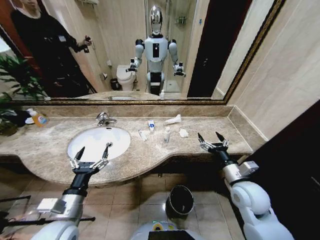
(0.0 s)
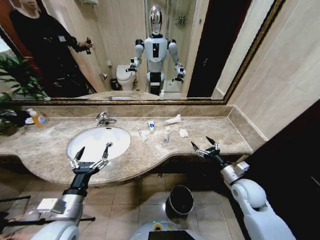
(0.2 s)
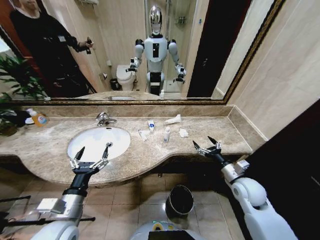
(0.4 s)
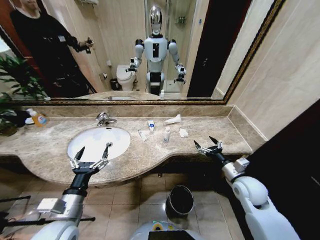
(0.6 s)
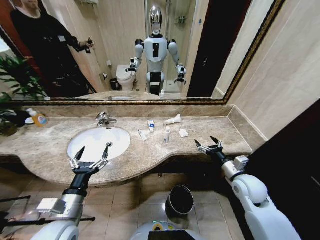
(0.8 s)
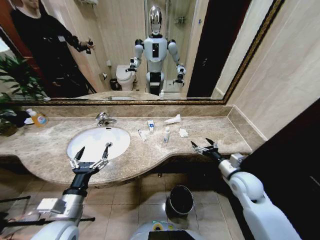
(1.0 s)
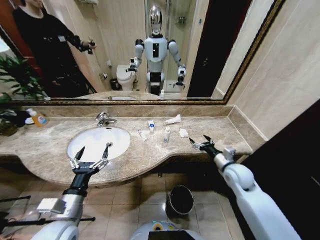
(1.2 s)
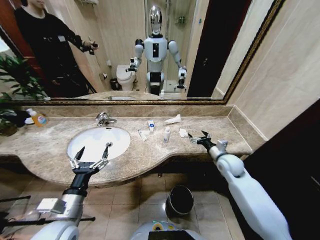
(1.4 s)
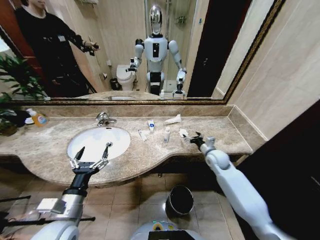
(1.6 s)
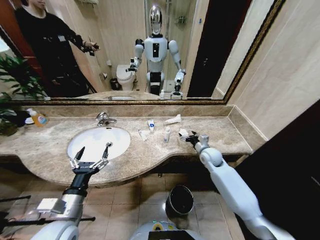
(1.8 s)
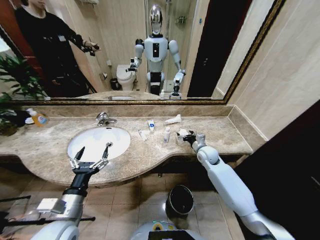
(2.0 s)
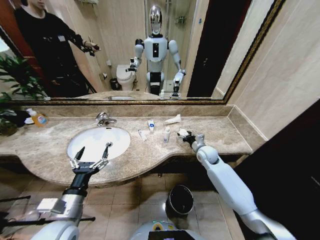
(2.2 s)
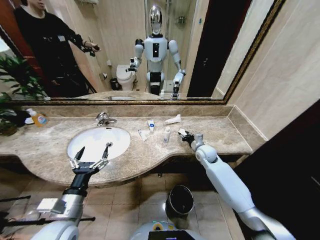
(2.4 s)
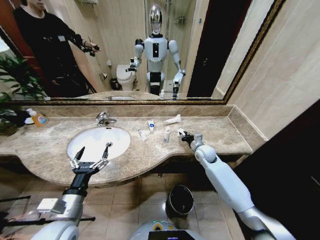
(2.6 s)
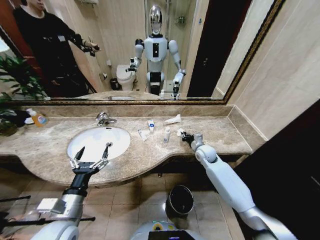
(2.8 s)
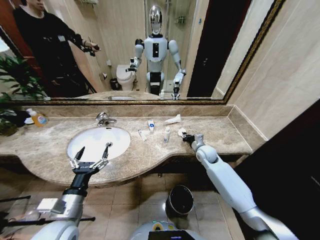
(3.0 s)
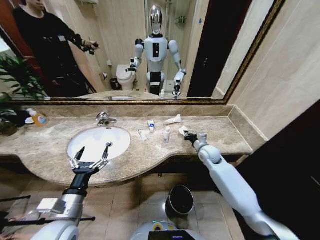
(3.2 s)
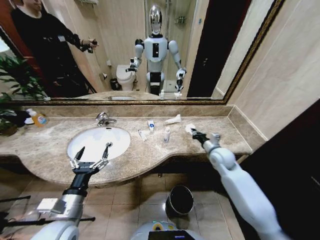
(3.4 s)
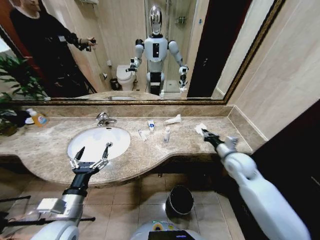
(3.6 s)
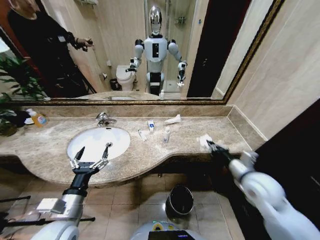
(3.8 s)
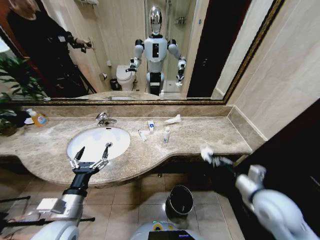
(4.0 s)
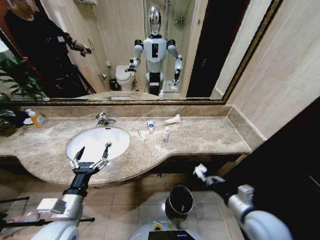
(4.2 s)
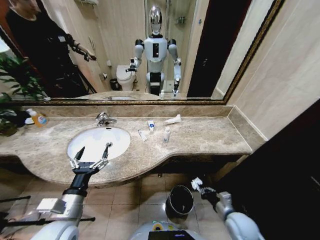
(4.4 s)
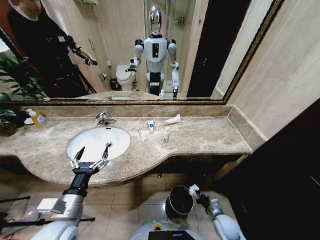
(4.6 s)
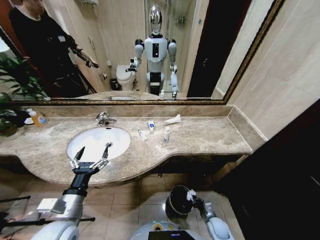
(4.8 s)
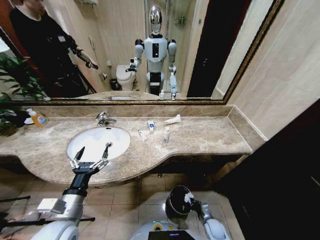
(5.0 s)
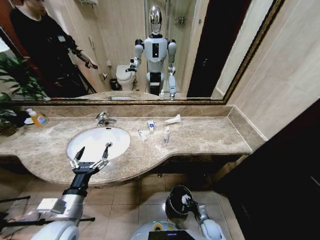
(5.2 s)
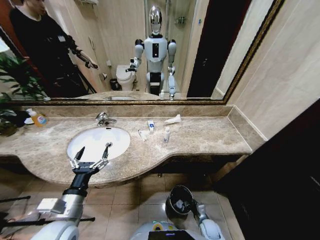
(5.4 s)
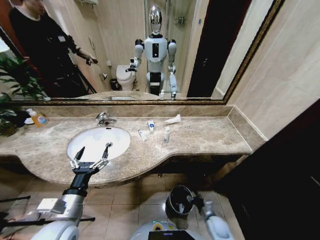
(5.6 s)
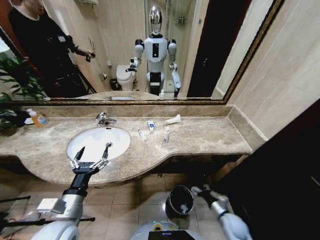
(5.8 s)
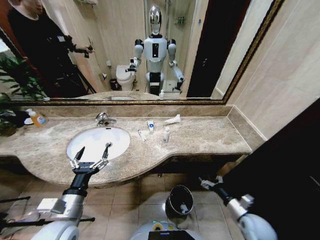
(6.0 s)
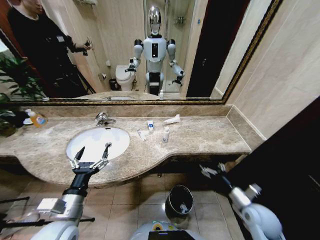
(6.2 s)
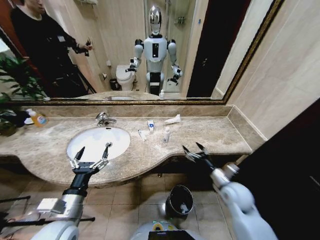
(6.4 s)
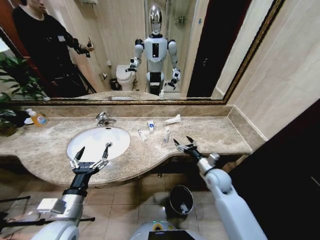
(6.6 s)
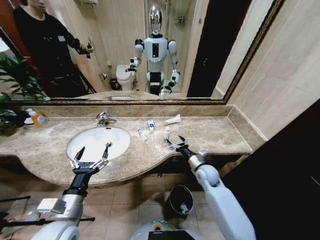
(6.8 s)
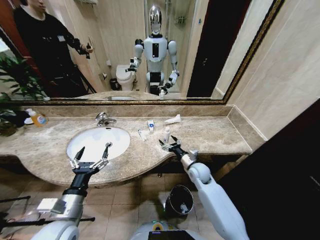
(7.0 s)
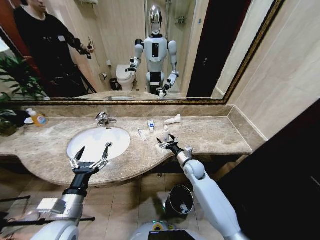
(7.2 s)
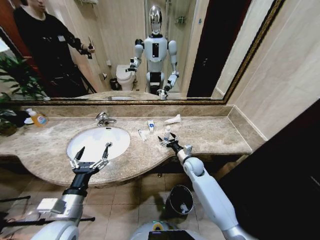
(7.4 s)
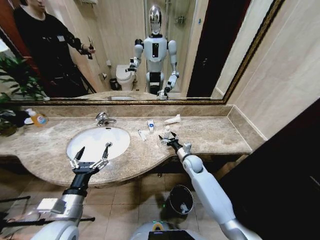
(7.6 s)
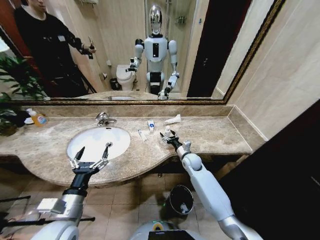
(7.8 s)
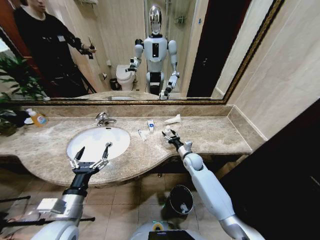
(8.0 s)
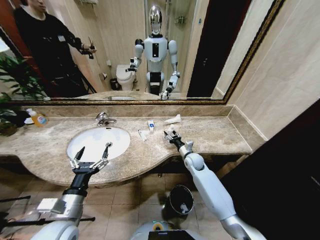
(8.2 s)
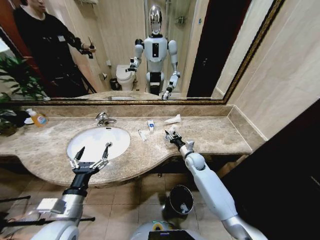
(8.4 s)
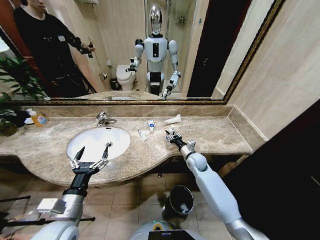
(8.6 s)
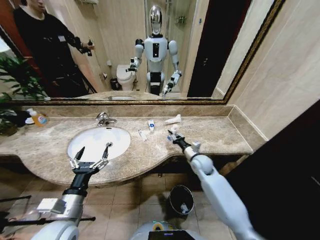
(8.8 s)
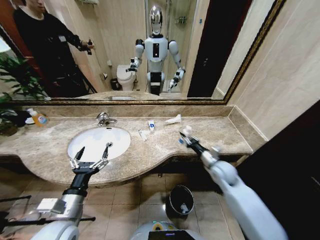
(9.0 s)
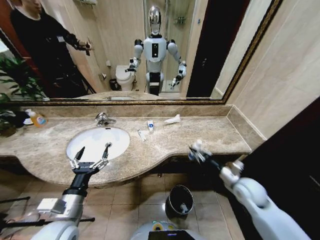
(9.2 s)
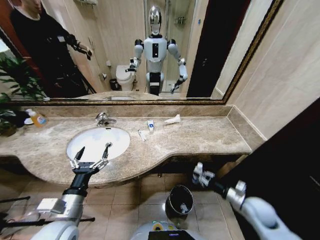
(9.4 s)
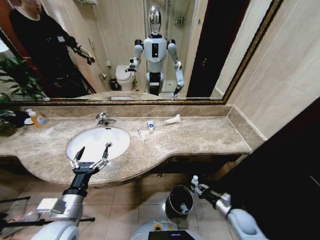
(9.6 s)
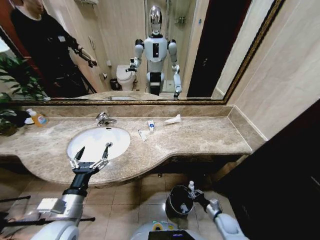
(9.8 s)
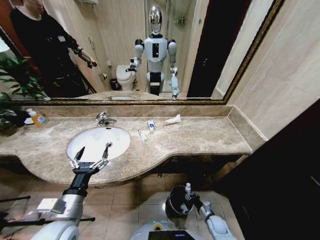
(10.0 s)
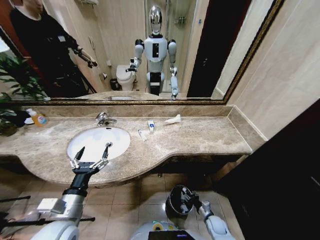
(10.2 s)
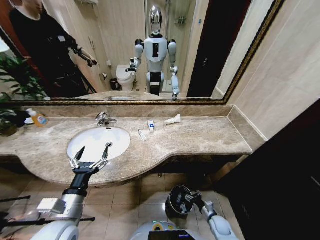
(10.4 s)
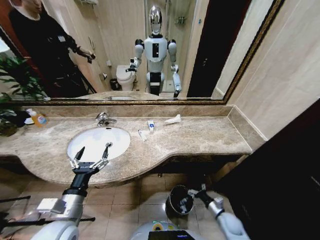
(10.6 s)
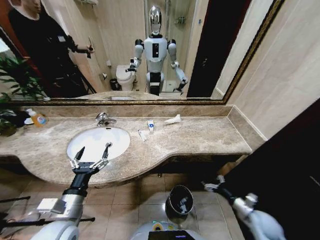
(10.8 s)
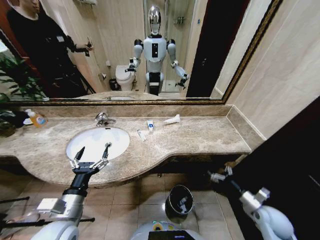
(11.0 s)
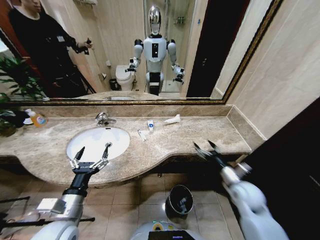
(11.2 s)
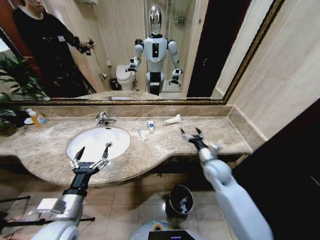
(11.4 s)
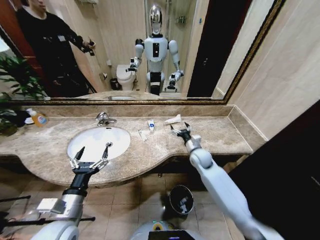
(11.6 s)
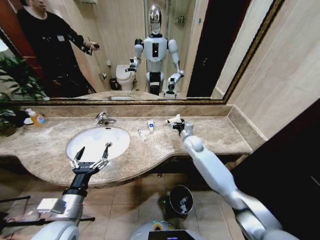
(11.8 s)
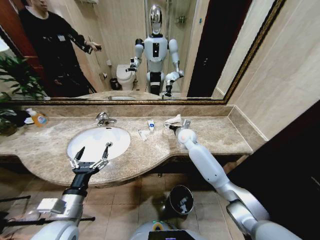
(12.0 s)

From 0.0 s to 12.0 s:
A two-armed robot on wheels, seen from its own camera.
Task of the whole recording: Pick up the trash from the sink and place it in the trash bin.
From 1.6 s to 3.0 s: The right gripper changes place by some 5 cm, and closes its fingers.
From 3.0 s to 4.4 s: The right gripper is displaced backward by some 30 cm.
From 4.4 s to 6.0 s: The right gripper goes approximately 5 cm to the right, goes downward and returns, roughly 20 cm each way, and opens up.
From 6.0 s to 7.6 s: The right gripper travels forward and to the left by roughly 30 cm.
From 7.6 s to 9.0 s: The right gripper moves to the right, backward and upward, about 15 cm, and closes its fingers.
From 9.0 s to 10.4 s: The right gripper heads downward and backward, covering some 35 cm, and opens its fingers.
From 10.4 s to 12.0 s: The right gripper shifts some 50 cm upward, forward and to the left.

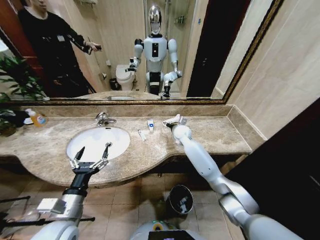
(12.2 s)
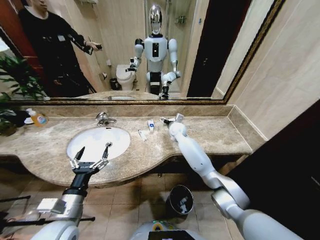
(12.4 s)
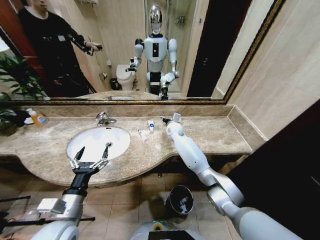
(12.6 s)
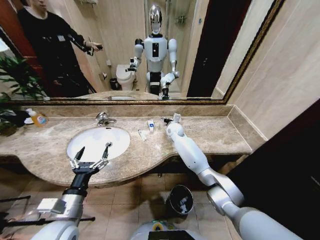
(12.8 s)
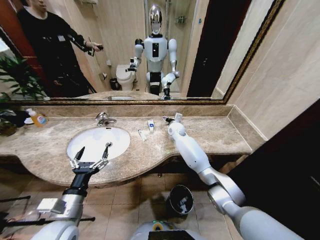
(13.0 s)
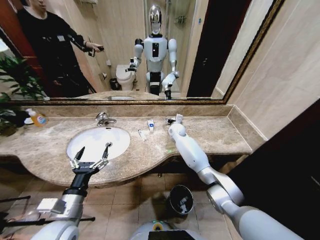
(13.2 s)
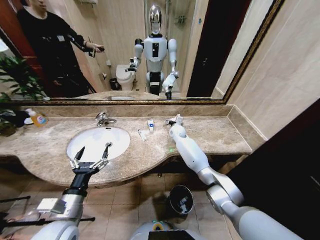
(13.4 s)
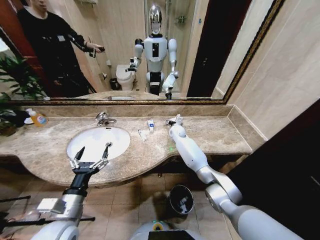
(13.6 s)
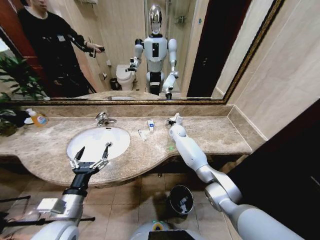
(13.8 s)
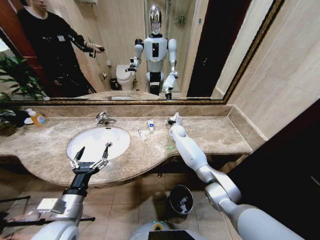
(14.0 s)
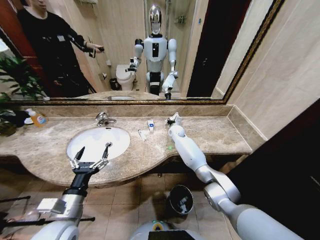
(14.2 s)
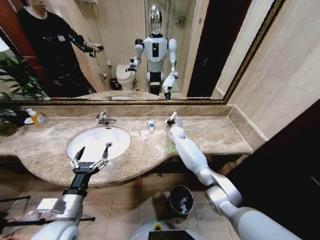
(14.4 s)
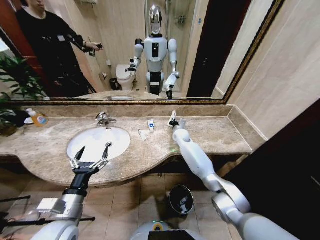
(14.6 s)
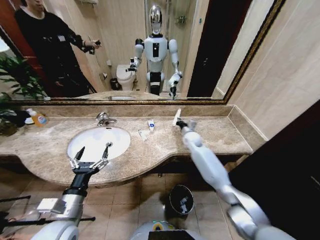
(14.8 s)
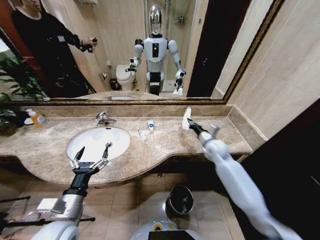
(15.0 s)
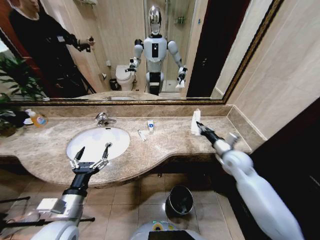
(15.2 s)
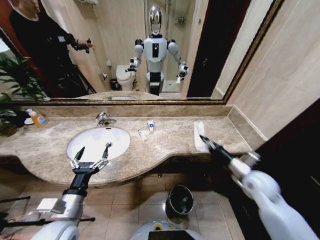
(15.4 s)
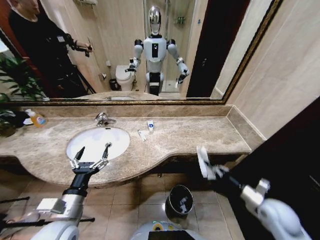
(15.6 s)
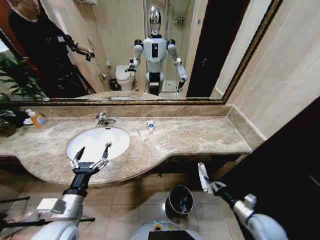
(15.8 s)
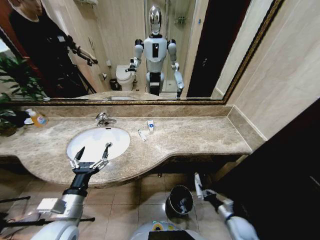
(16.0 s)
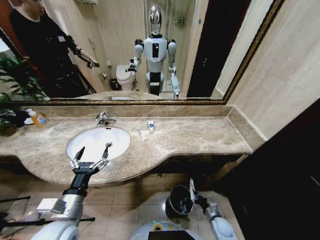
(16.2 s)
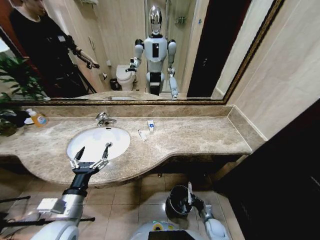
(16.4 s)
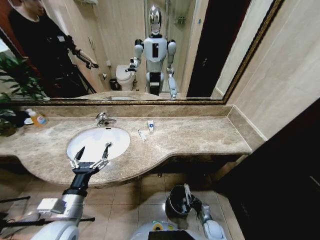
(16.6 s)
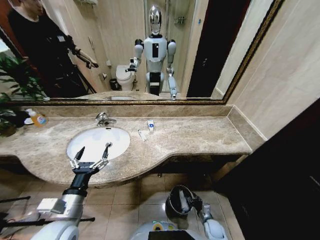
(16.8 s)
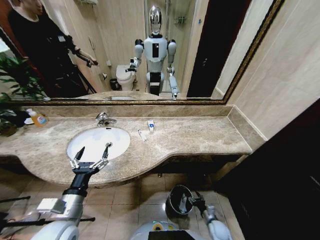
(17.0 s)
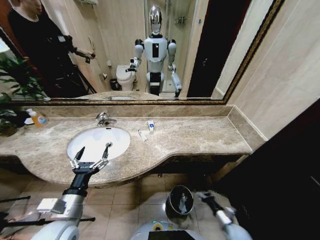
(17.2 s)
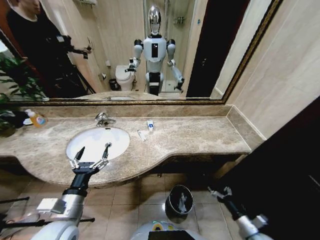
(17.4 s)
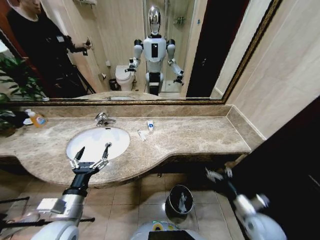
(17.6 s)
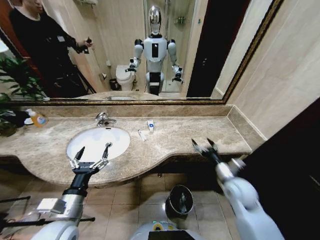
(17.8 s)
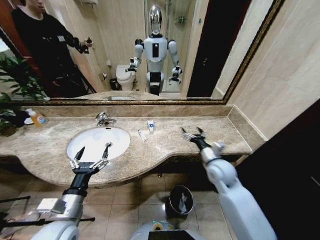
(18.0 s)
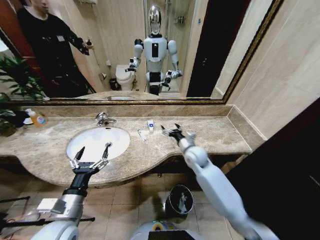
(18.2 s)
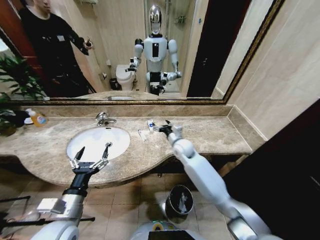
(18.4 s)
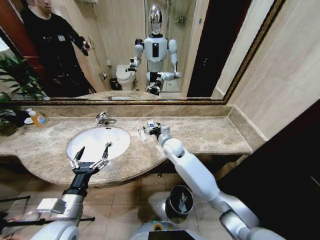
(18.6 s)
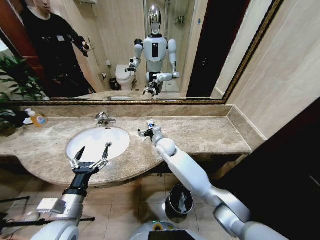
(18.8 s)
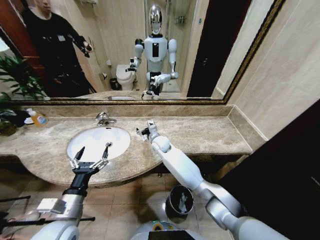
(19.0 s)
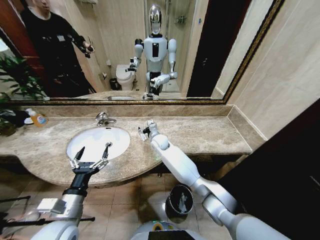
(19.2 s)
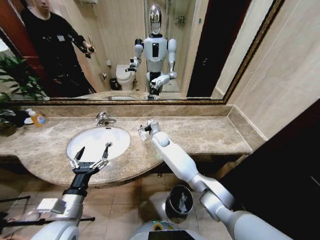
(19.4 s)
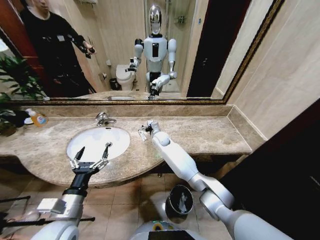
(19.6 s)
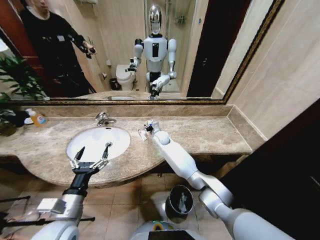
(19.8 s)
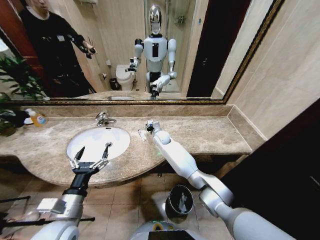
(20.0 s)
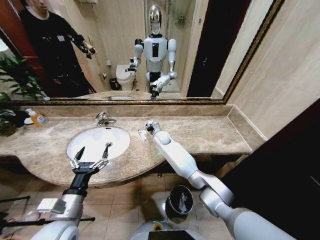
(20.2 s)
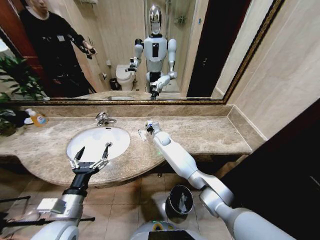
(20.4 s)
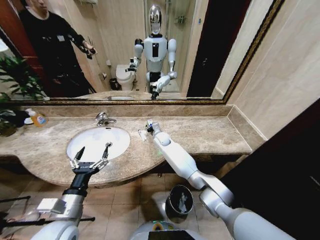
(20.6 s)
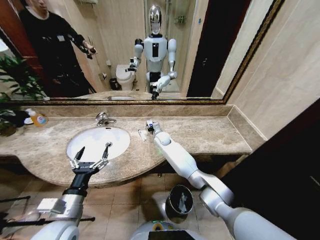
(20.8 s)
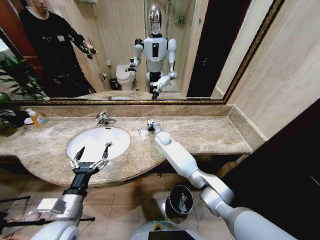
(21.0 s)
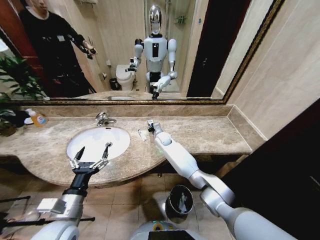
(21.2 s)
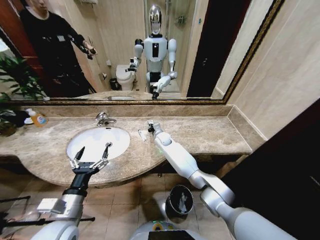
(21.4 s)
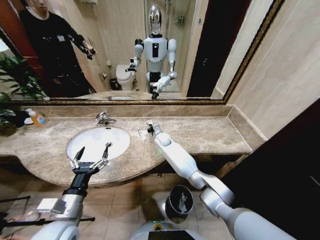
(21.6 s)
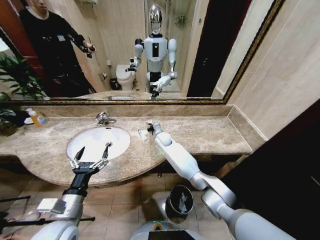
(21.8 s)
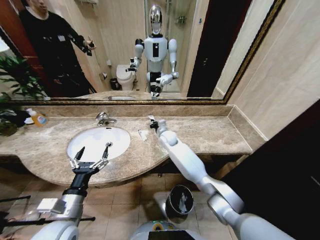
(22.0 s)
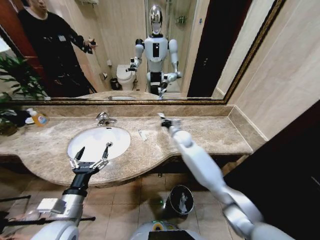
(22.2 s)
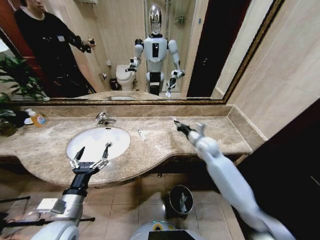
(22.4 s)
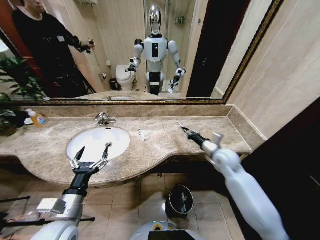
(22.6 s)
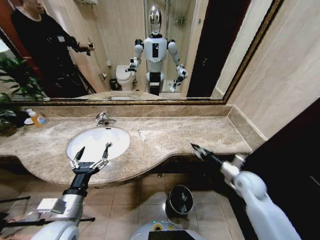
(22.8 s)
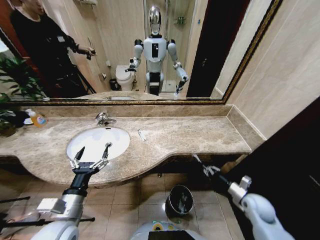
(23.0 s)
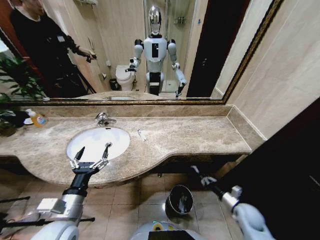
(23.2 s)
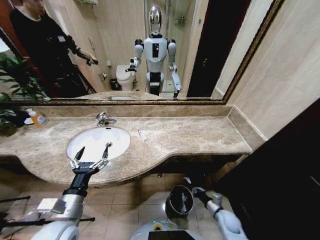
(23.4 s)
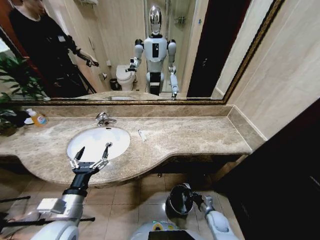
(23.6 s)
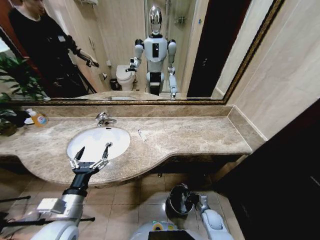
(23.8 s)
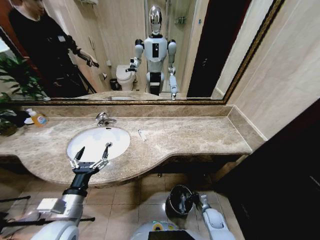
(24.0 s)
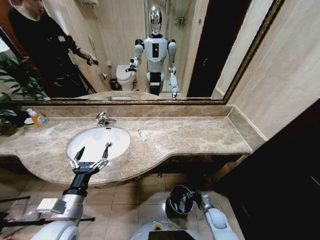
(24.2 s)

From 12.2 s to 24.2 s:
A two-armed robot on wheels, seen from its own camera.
Task of the whole recording: Pick up the trash from the sink and place it in the trash bin.
From 12.2 s to 13.8 s: The right gripper heads forward and downward, covering some 10 cm.
From 13.8 s to 15.2 s: The right gripper moves backward and to the right, roughly 30 cm, and closes its fingers.
From 15.2 s to 16.6 s: The right gripper heads downward and backward, covering roughly 40 cm.
From 16.6 s to 18.2 s: The right gripper is displaced upward and forward by roughly 40 cm, and opens up.
From 18.2 s to 19.8 s: The right gripper shifts about 20 cm to the left and forward, and closes up.
From 19.8 s to 21.2 s: The right gripper closes up.
From 21.2 s to 22.6 s: The right gripper travels to the right and backward by some 35 cm.
From 22.6 s to 24.2 s: The right gripper is displaced downward and backward by roughly 35 cm, and opens its fingers.
